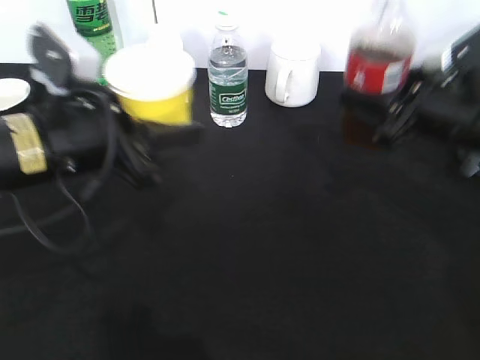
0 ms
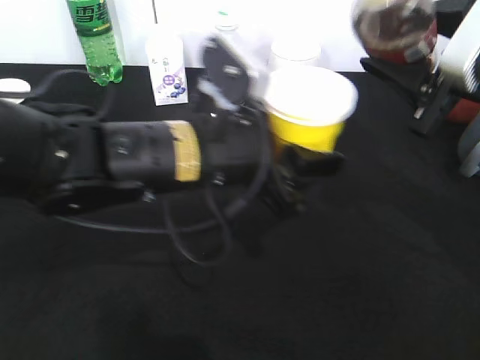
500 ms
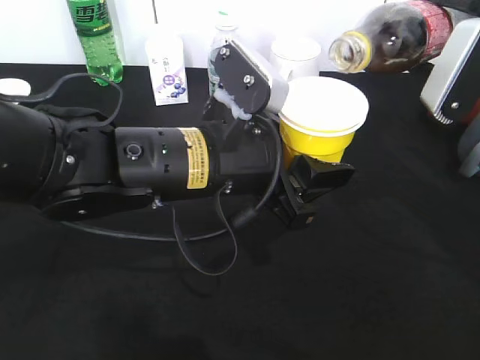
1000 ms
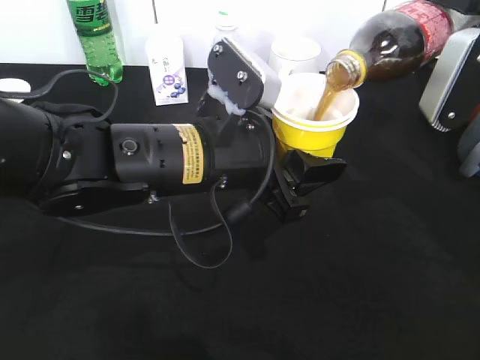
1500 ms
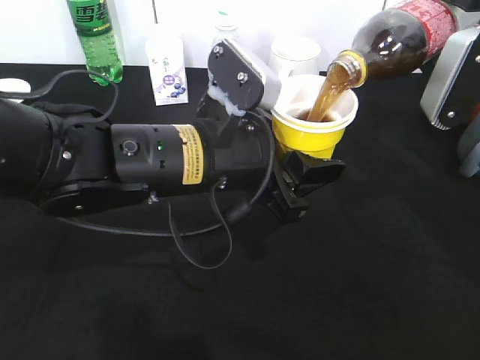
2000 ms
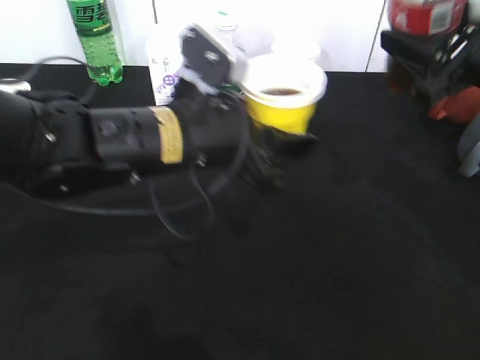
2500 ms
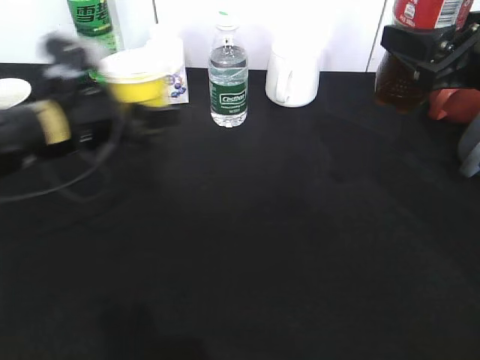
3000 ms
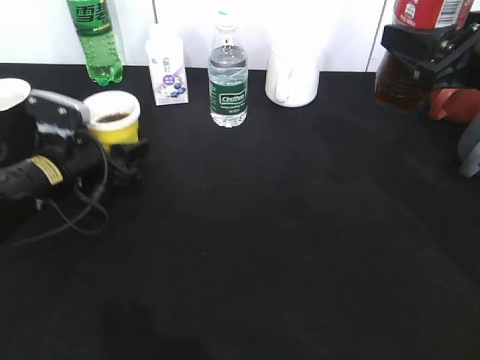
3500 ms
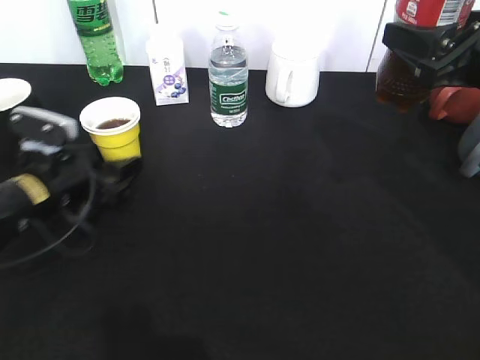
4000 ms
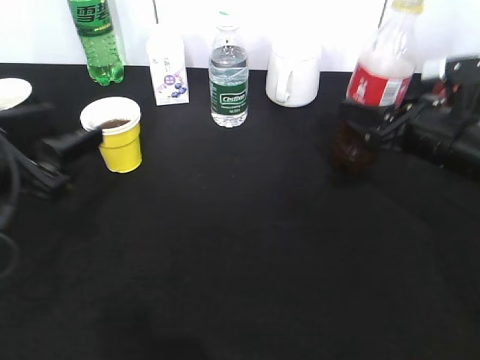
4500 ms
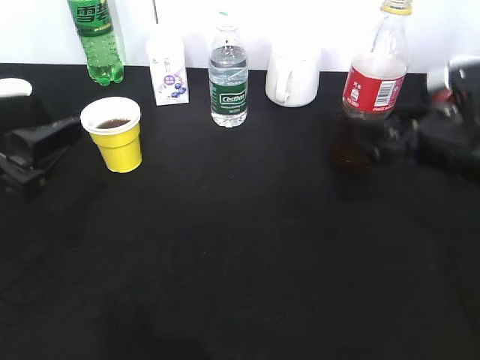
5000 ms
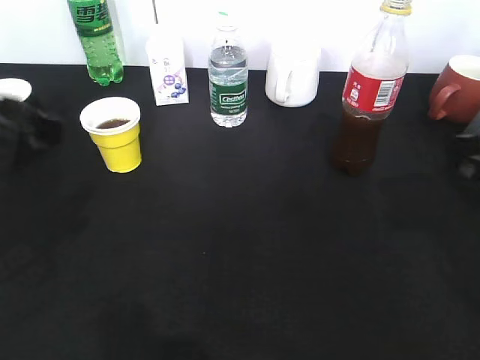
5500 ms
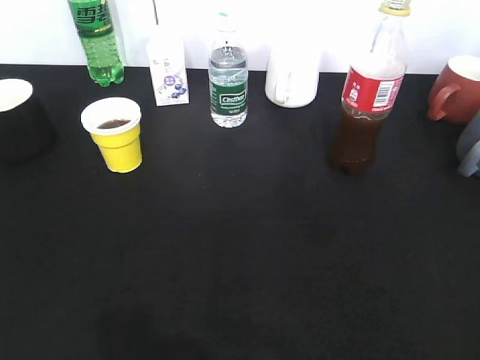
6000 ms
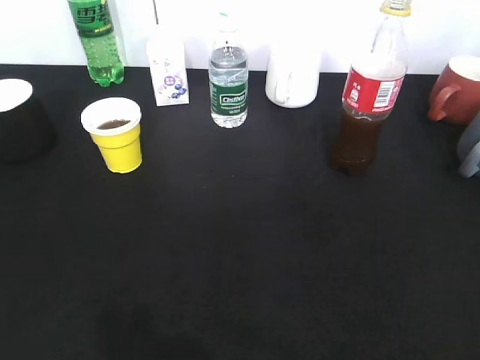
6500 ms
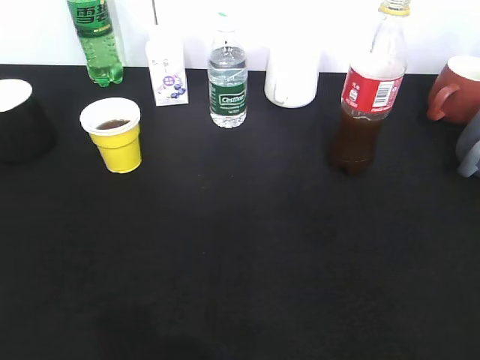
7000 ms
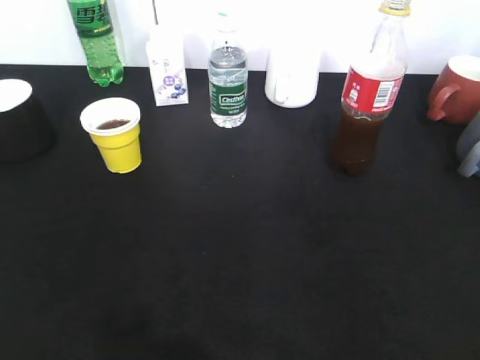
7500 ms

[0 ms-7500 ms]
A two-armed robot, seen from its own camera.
Step, 0 ms to 2000 ms: Pour the cola from bottle to cup with right gripper.
Step, 2500 ms to 4000 ms: Place the yellow paper cup on the table with left gripper.
Step, 4500 ms to 5000 ms: Place the cola bottle on the table with right gripper.
0 ms to 2000 ms: The right gripper heads upward, covering roughly 5 cm; the left gripper shifts roughly 10 cm to the right.
2000 ms to 4000 ms: The left gripper shifts roughly 20 cm to the left and downward.
4000 ms to 5500 ms: The left gripper travels upward and backward by approximately 20 cm; the right gripper travels backward by some 5 cm, moves approximately 10 cm downward and comes back, and opens up.
5500 ms to 7500 ms: The right gripper is displaced backward by some 20 cm, while the left gripper shifts roughly 20 cm backward and to the left.

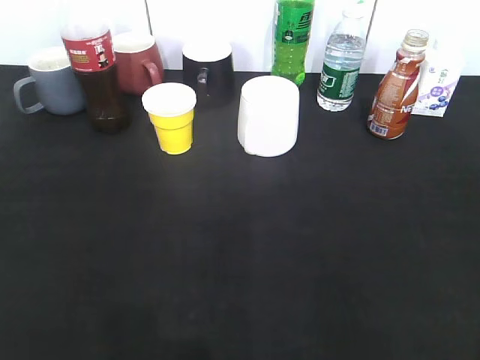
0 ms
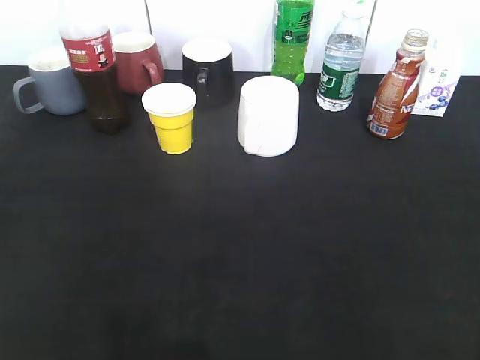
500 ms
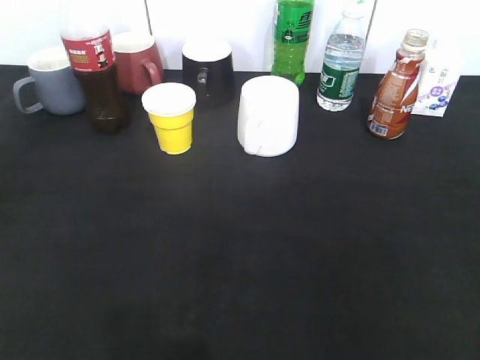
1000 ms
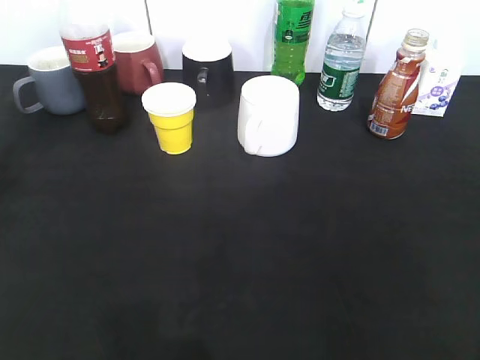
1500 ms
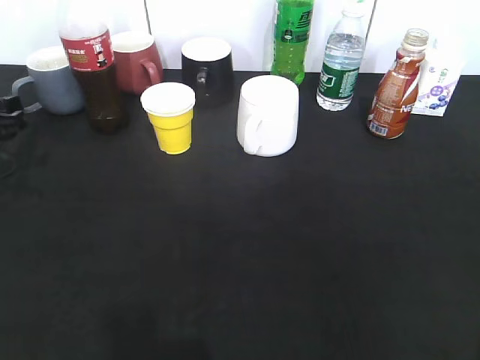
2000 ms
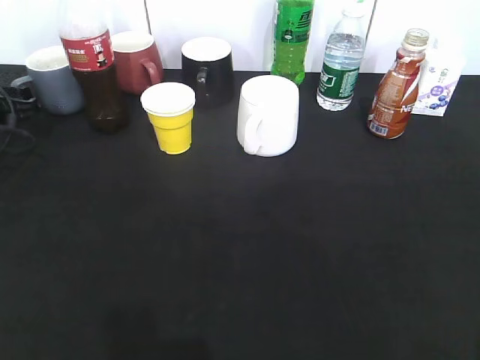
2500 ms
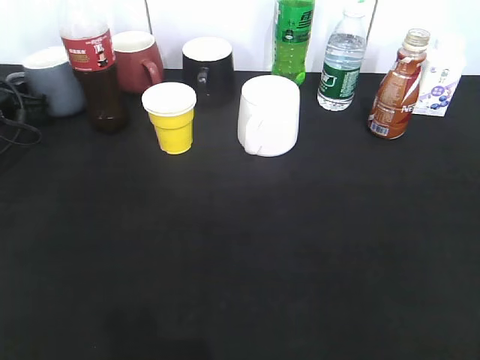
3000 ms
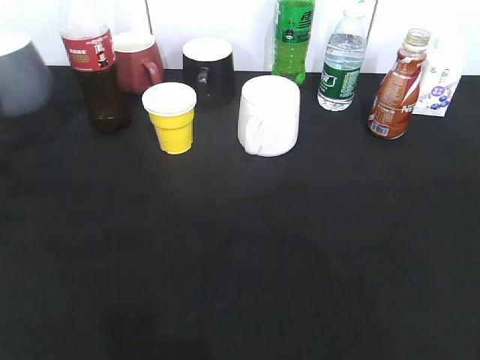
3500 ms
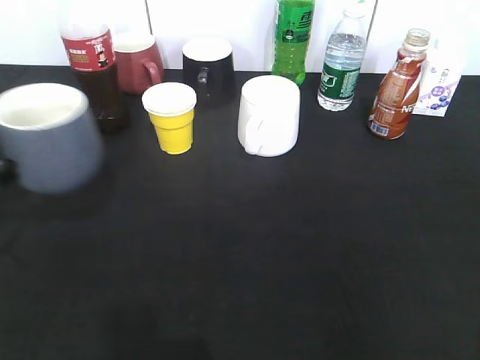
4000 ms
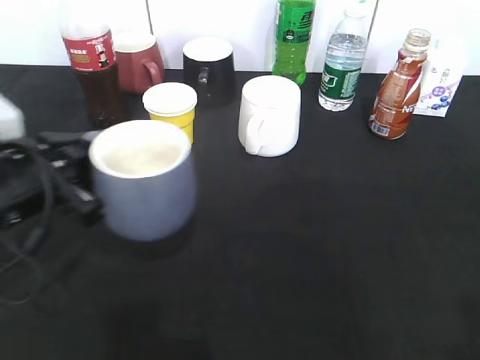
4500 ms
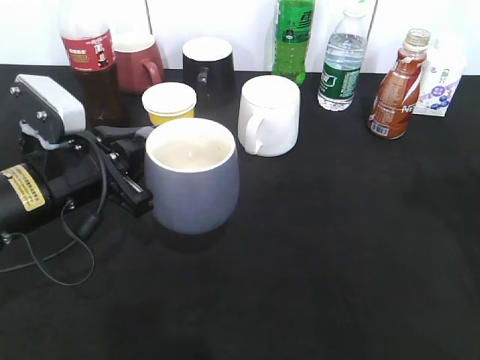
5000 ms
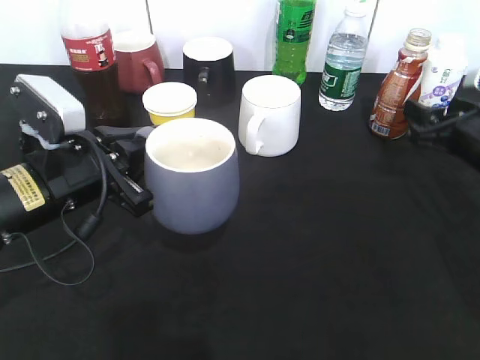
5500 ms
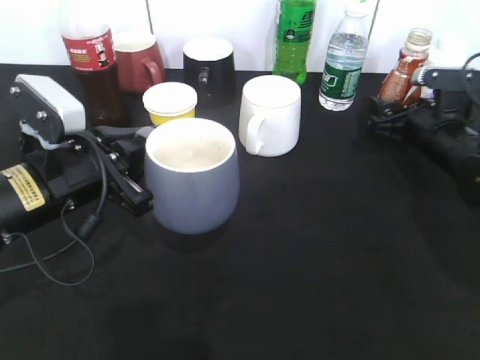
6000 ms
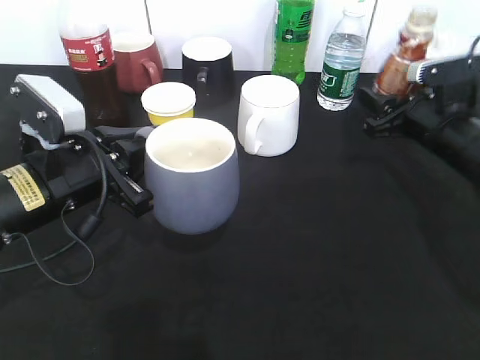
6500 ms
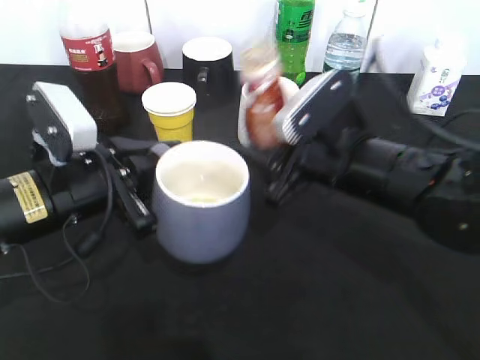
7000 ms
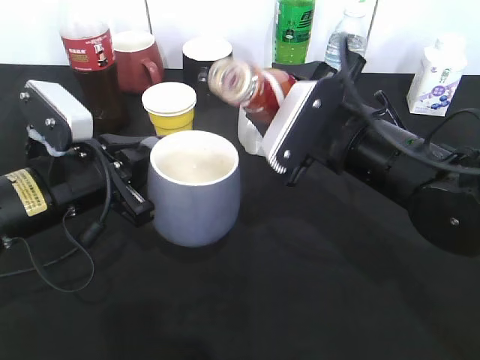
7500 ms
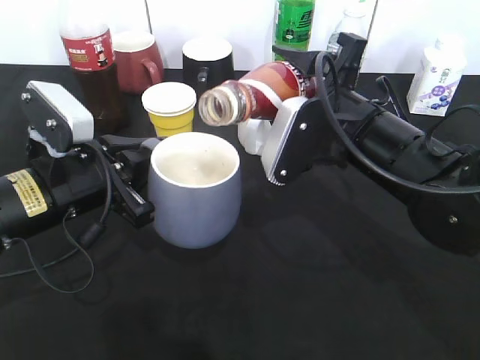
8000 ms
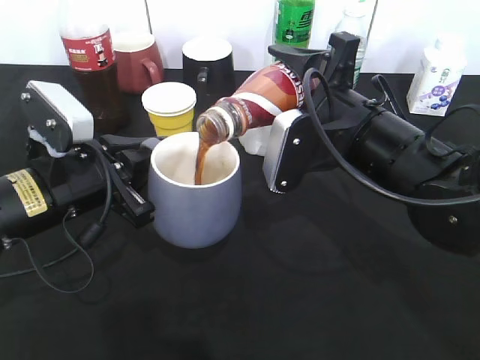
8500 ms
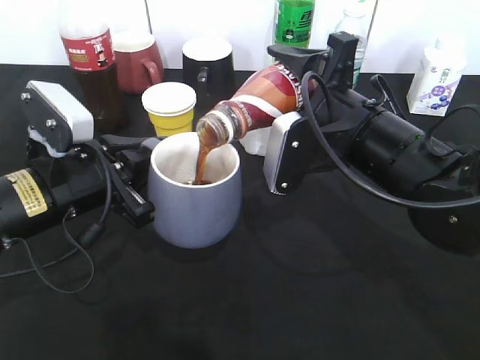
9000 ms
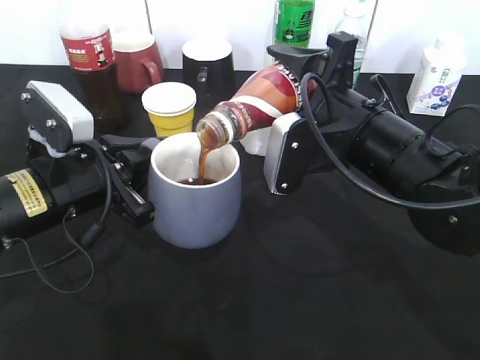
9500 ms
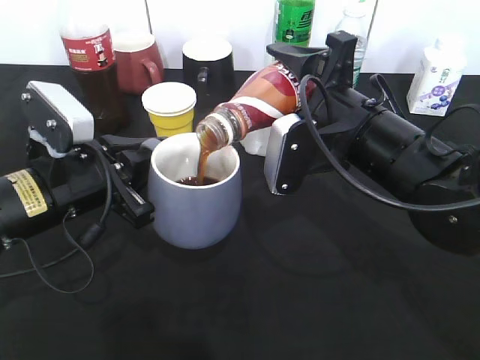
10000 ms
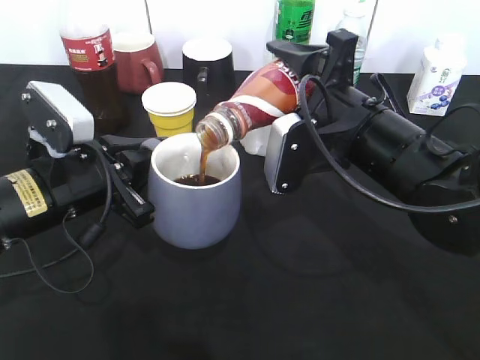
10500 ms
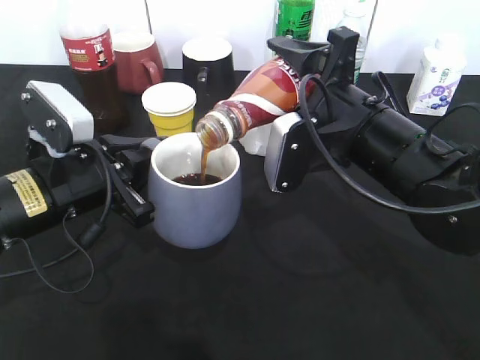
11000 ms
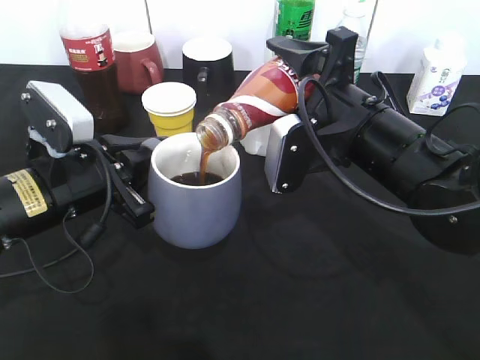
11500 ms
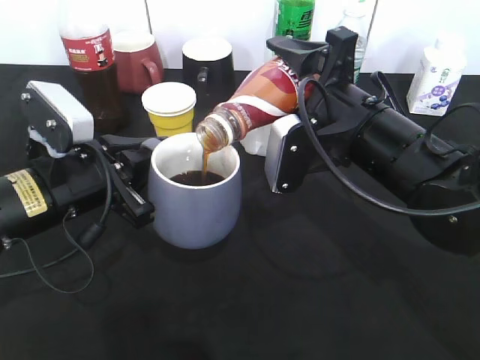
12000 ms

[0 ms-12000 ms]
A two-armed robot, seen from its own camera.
Step, 0 ms to 2500 ms: Grasp the grey cup with left gripper.
Step, 3500 ms to 5000 ms: Lift the grey cup with left gripper.
Step, 5500 ms to 6000 ms: Grasp the bottle with coffee with right gripper.
0 ms to 2000 ms: The left gripper shifts approximately 35 cm forward.
2000 ms to 4000 ms: The left gripper shifts approximately 10 cm backward, and closes its fingers.
4000 ms to 6000 ms: The right gripper goes some 40 cm forward and downward. The left gripper shifts roughly 10 cm to the right.
6000 ms to 8000 ms: The right gripper moves to the left, backward and upward, about 20 cm.
8000 ms to 10000 ms: The grippers move only a little.
10000 ms to 12000 ms: The two grippers keep their place.

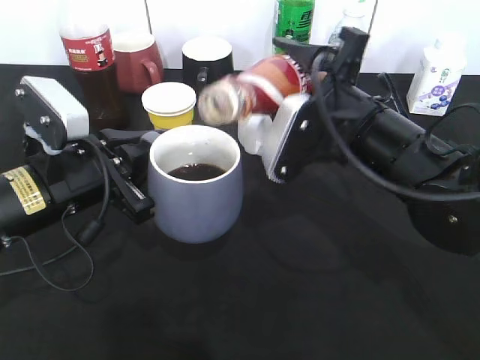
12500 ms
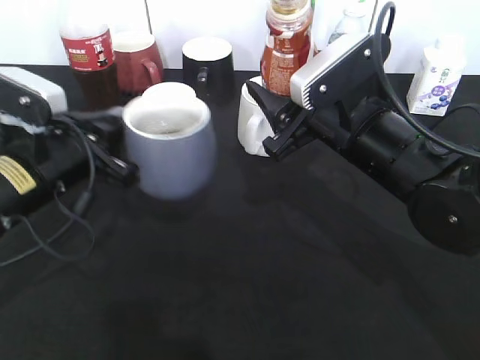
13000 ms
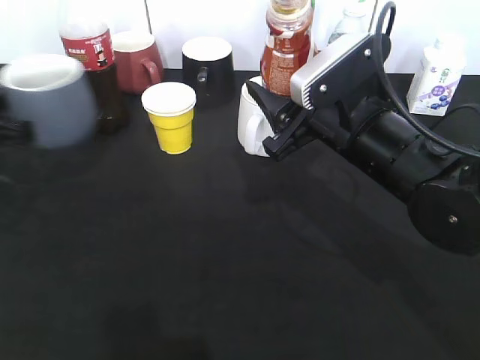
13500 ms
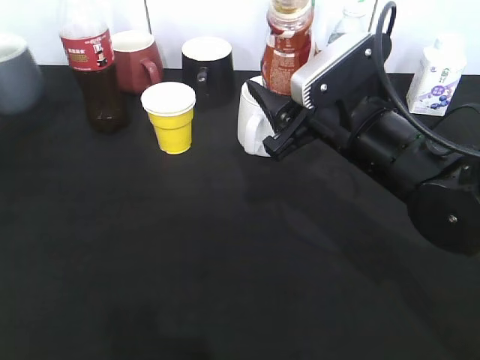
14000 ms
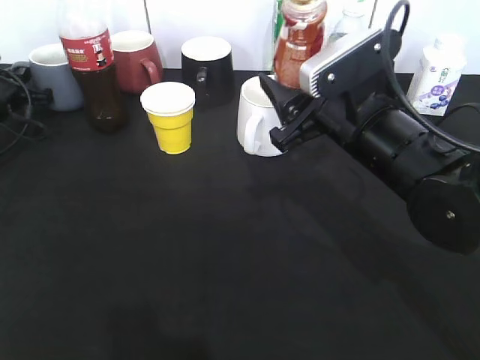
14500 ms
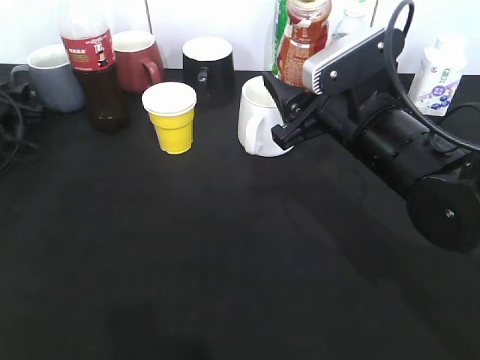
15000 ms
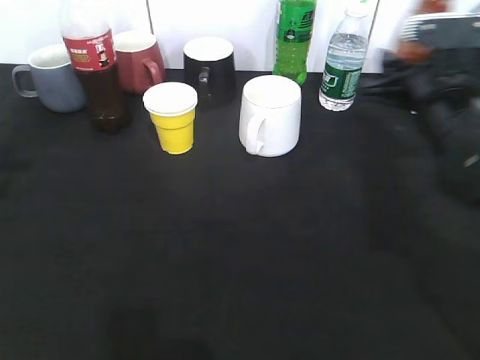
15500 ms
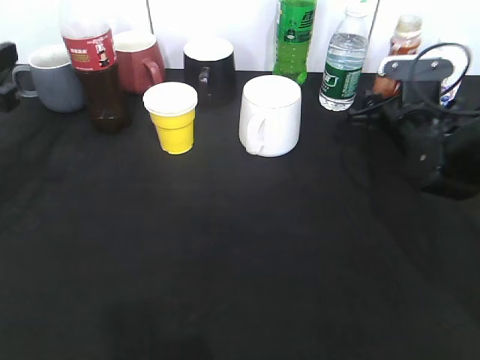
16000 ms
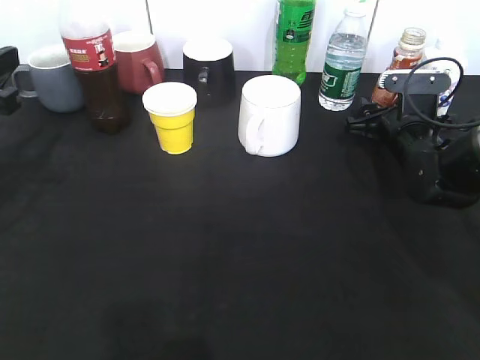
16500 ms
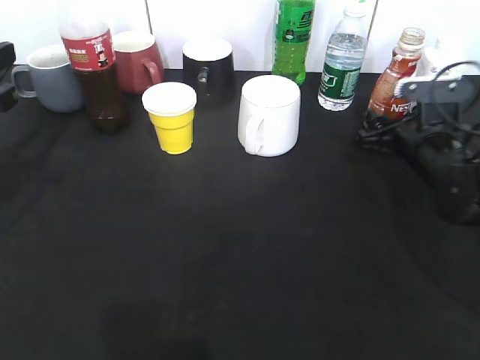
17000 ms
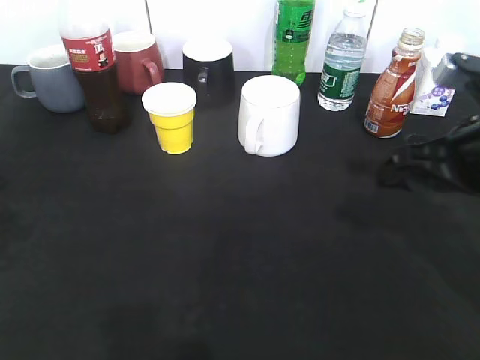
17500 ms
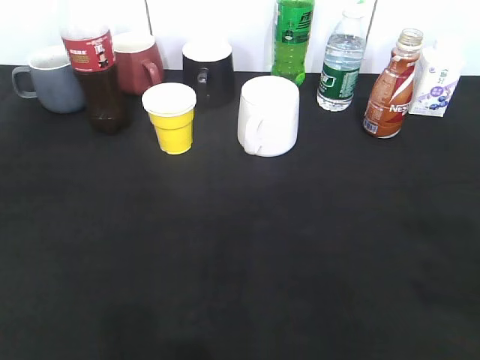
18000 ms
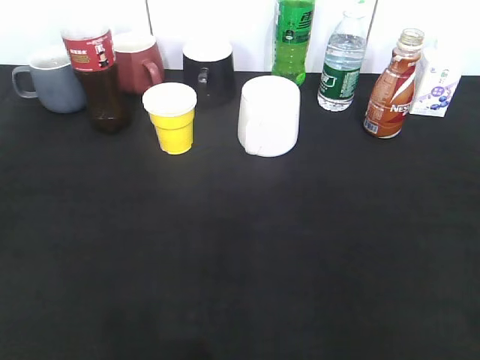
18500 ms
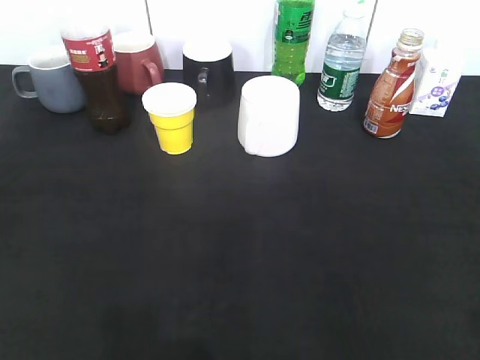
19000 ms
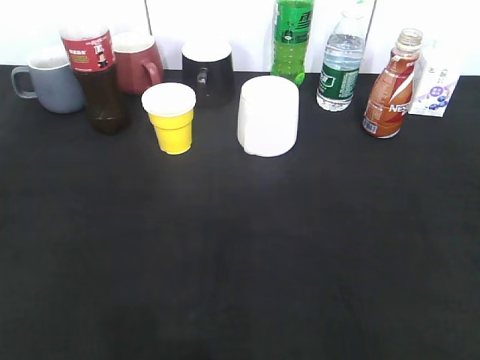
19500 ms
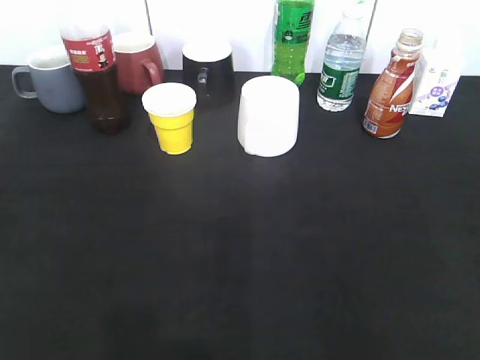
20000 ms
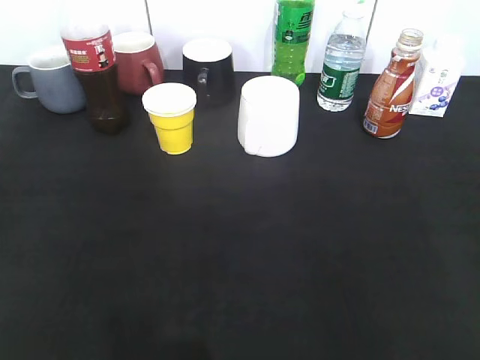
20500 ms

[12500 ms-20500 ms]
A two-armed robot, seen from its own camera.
Step, 13000 ms to 15000 ms: Place the grey cup on the table with left gripper.
Step, 15500 ms to 17000 ms: Place the coffee bottle on the table with right gripper.
12500 ms to 14500 ms: The left gripper moves forward and to the left, roughly 30 cm.
14500 ms to 16500 ms: The right gripper is displaced forward, downward and to the right by roughly 20 cm, while the left gripper is displaced backward and upward by approximately 25 cm, and opens up.
16500 ms to 18500 ms: The left gripper shifts some 20 cm backward. The right gripper goes about 40 cm backward and upward.
